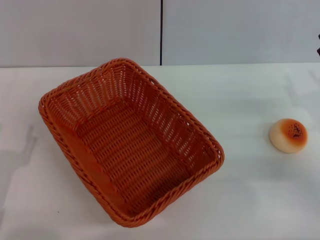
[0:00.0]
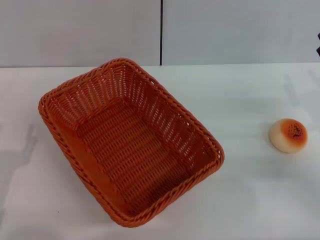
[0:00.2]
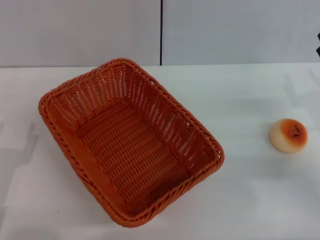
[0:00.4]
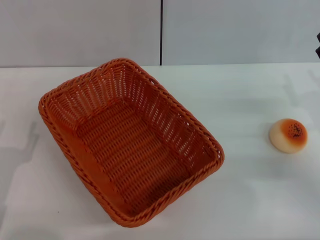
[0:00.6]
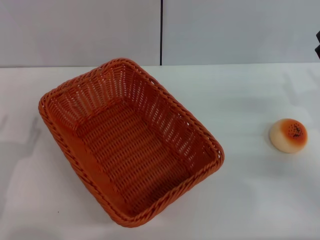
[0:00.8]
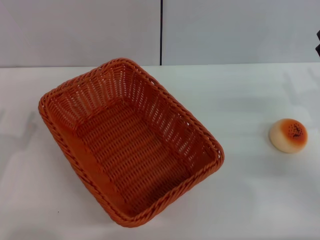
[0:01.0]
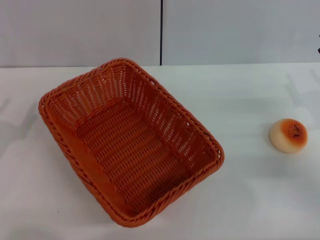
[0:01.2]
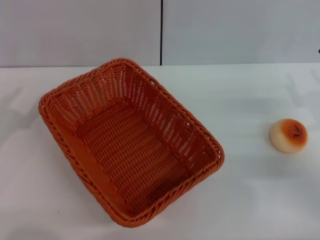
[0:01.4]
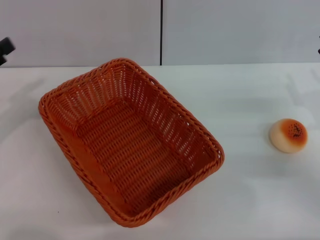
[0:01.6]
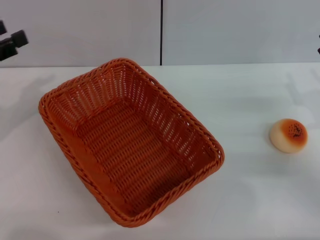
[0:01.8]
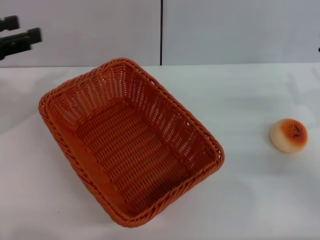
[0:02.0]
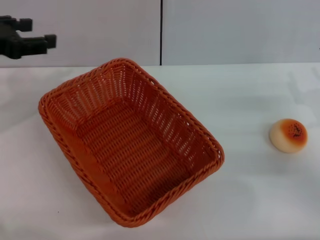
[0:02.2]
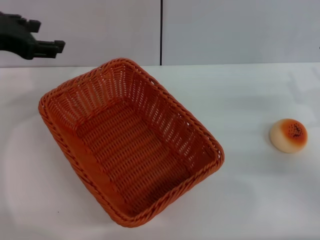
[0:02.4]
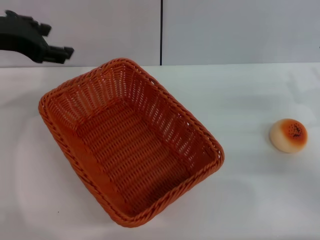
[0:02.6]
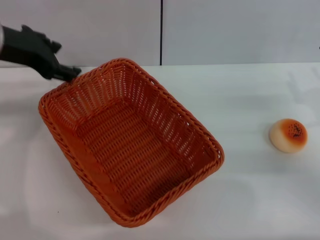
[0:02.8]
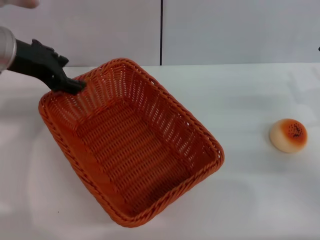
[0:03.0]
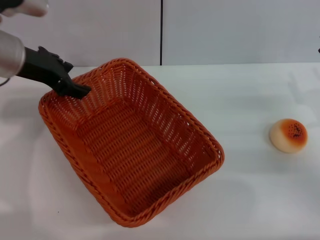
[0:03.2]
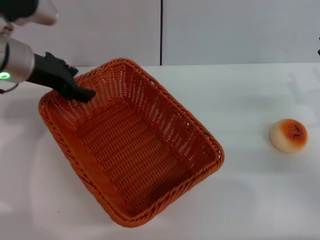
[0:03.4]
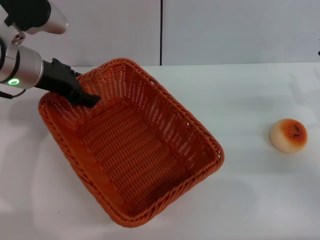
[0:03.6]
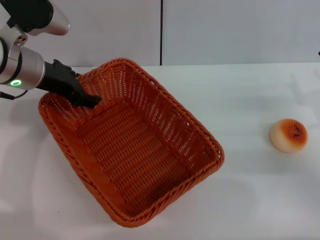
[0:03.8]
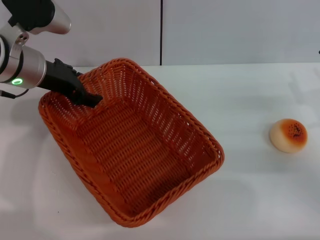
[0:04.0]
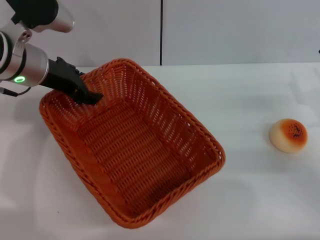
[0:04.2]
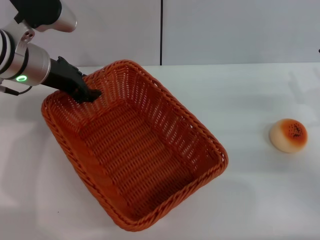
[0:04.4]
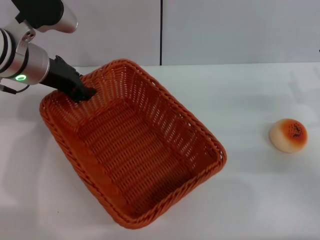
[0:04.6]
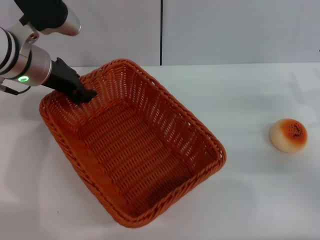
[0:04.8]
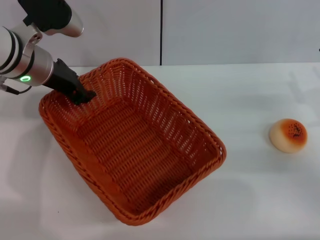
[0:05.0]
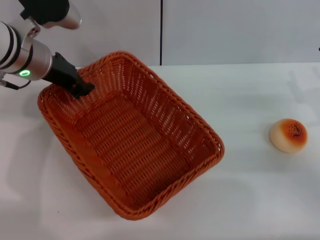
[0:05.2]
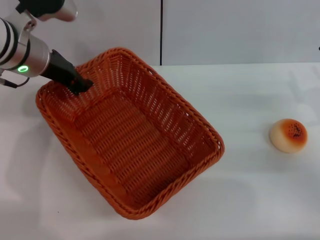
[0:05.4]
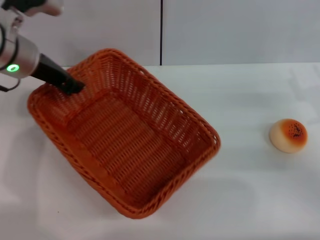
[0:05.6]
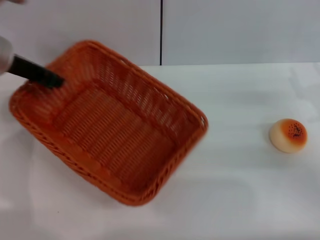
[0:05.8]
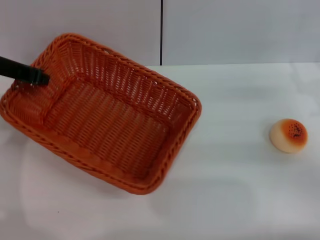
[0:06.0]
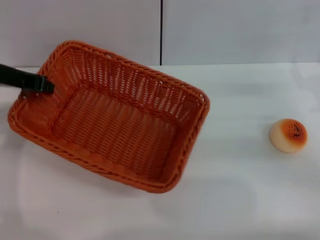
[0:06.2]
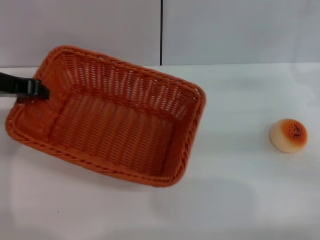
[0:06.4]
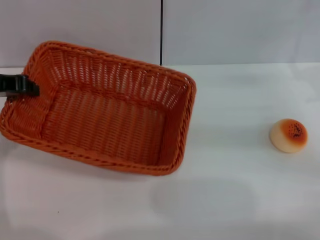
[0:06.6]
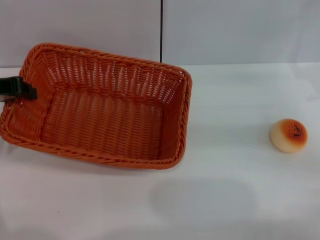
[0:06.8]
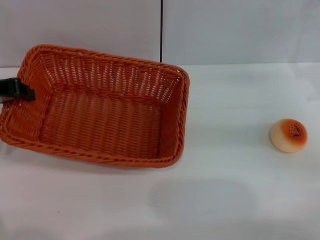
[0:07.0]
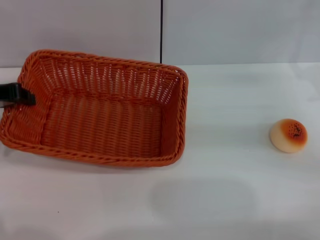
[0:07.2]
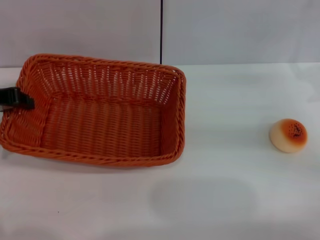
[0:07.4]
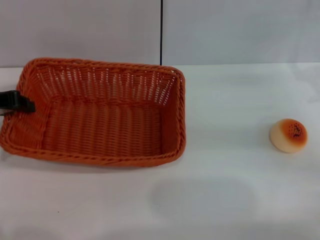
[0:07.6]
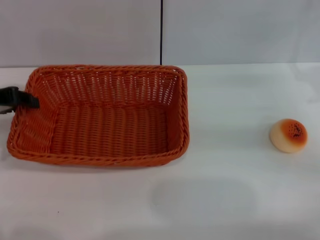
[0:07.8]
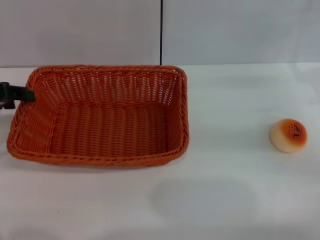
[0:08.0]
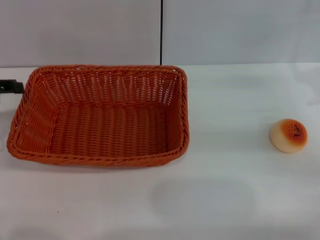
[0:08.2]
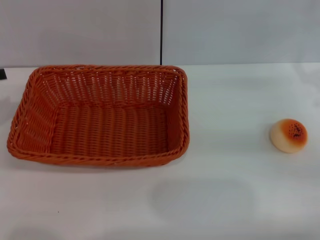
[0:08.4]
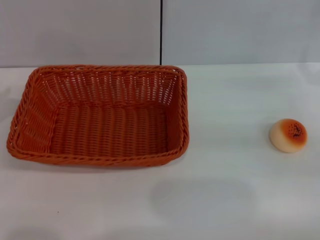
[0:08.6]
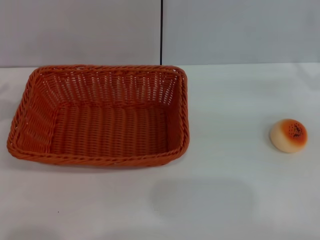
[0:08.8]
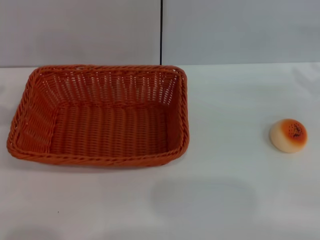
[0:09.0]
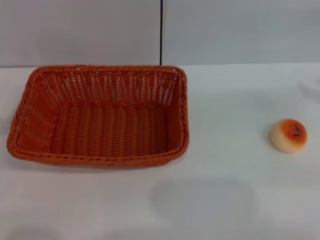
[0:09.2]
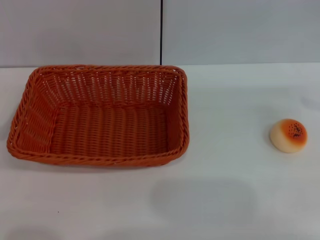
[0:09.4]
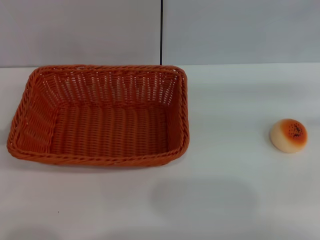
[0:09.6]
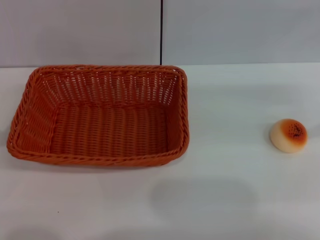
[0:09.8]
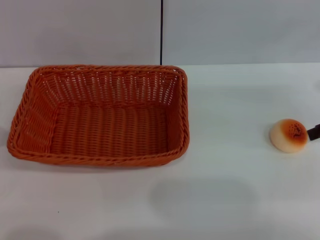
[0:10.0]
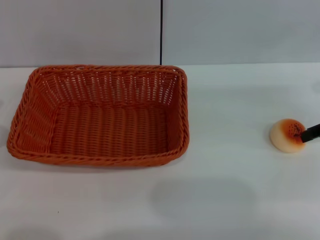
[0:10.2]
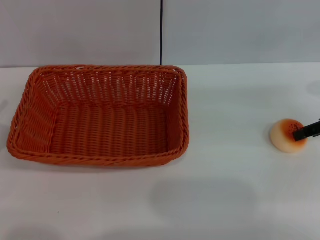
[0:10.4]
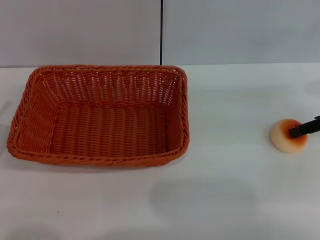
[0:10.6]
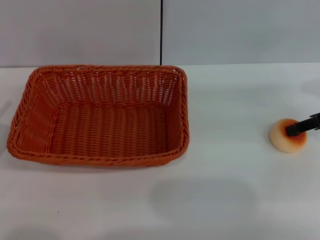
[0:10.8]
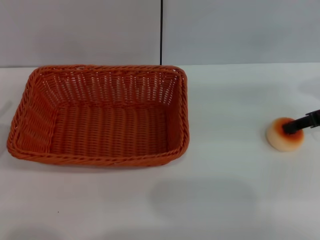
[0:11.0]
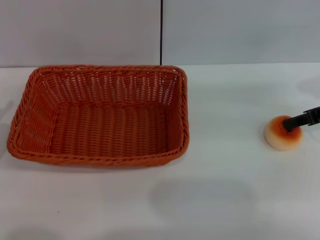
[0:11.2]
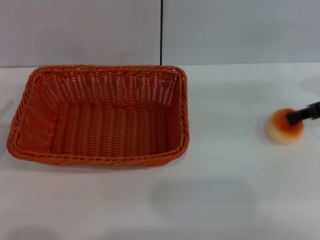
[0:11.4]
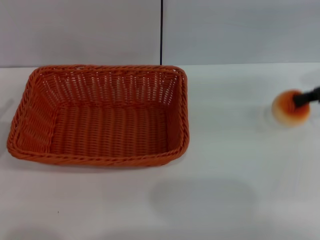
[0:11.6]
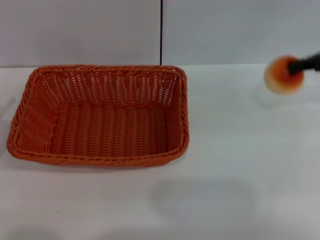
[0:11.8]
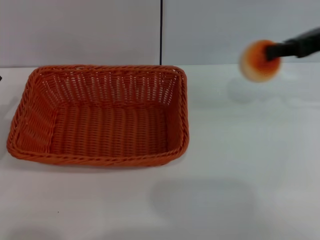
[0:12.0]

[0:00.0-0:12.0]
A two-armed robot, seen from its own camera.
Step, 0:00.0 to 0:08.2: Move the basket to the center of view with the left gripper.
Step, 0:08.4 to 0:12.0: Pick up the egg yolk pastry with the right gripper.
0:01.6 to 0:03.0: The left gripper moves to the right, forward and upward, about 15 cm.
0:03.0 to 0:04.4: The left gripper moves approximately 5 cm.
0:04.4 to 0:06.0: The left gripper shifts approximately 5 cm to the left, and closes its fingers.
0:06.0 to 0:07.6: The left gripper shifts by approximately 5 cm.
0:07.6 to 0:09.0: The left gripper goes about 10 cm to the left and backward, and opens up. Meanwhile the right gripper is displaced upward and to the right by about 10 cm.
0:10.4 to 0:12.0: The right gripper shifts about 10 cm upward and to the left, and closes.

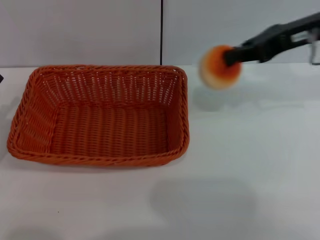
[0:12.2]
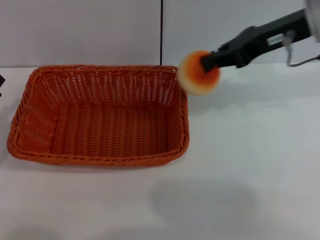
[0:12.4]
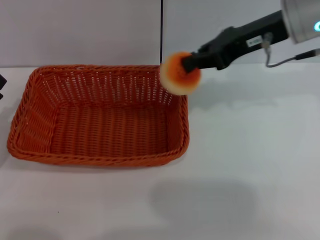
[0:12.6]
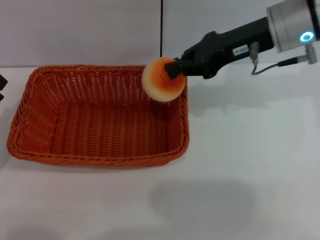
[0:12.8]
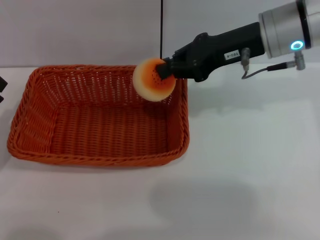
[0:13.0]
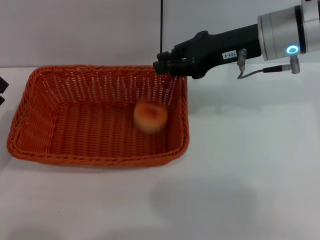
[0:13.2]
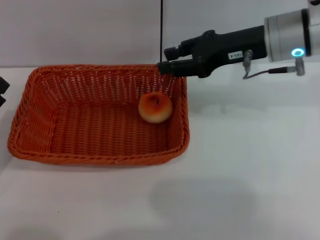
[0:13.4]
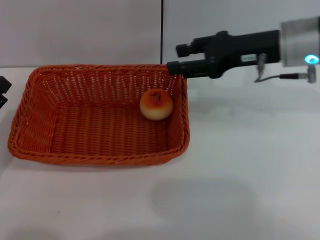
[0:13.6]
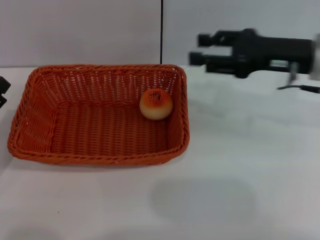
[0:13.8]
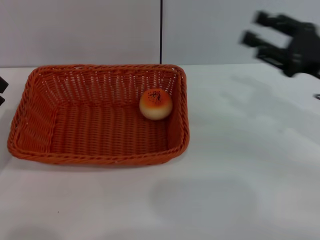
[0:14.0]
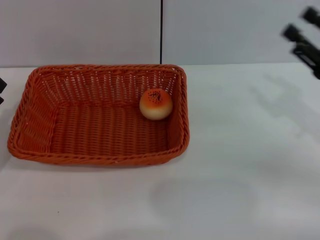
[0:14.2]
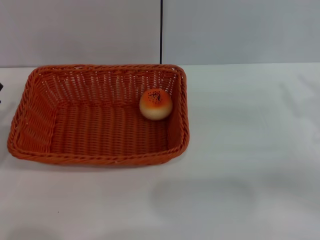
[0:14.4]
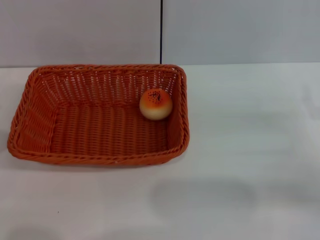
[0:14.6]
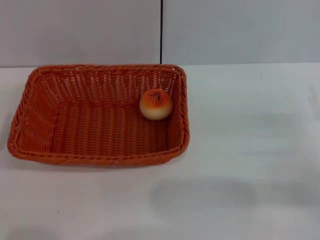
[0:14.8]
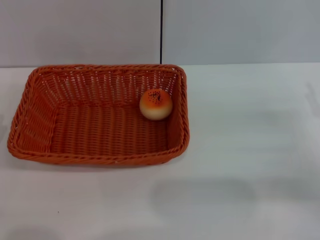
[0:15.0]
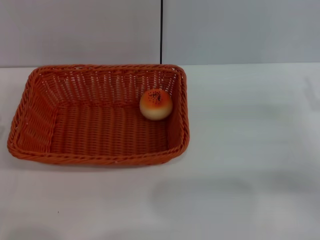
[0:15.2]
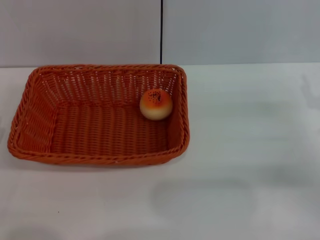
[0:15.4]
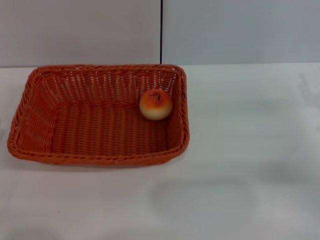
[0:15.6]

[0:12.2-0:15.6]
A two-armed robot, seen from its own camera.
Step, 0:12.2 to 0:13.8: Place the egg yolk pastry into the basket with the right gripper.
0:12.2 to 0:13.8: The right gripper heads downward, covering roughly 5 cm, moves approximately 10 cm to the left and comes back, and opens up.
0:13.8 to 0:15.6: The right gripper shifts about 15 cm downward, to the right and backward.

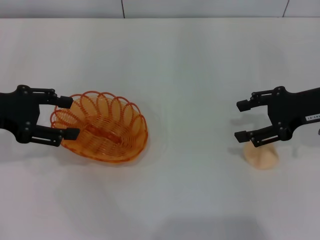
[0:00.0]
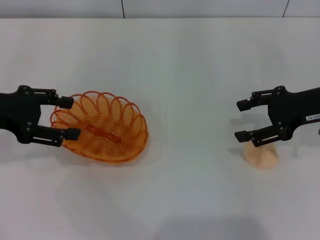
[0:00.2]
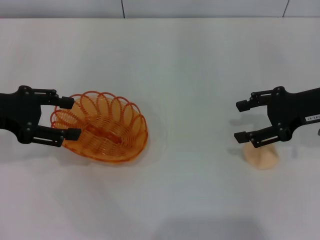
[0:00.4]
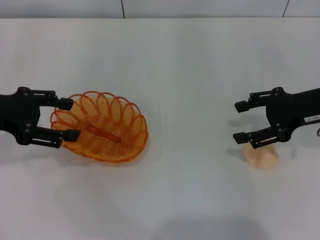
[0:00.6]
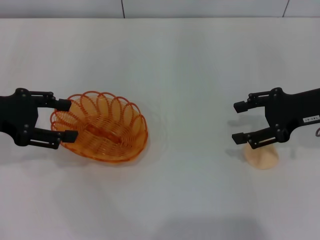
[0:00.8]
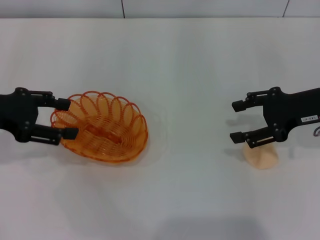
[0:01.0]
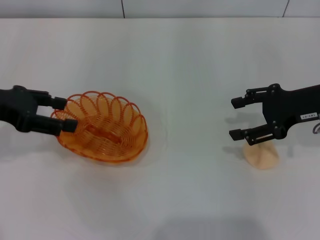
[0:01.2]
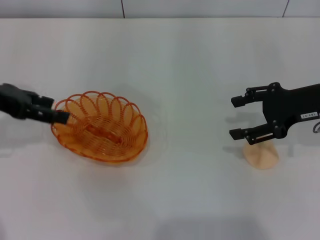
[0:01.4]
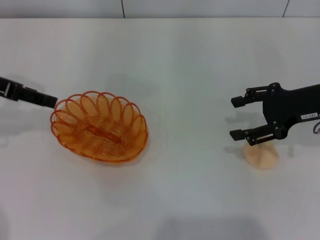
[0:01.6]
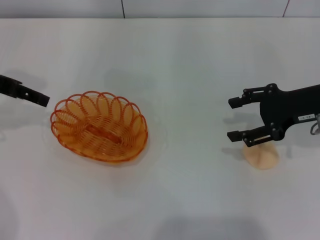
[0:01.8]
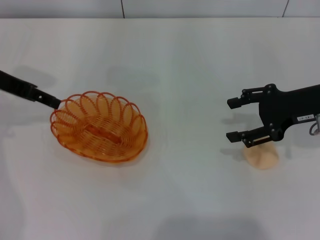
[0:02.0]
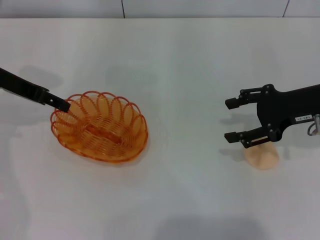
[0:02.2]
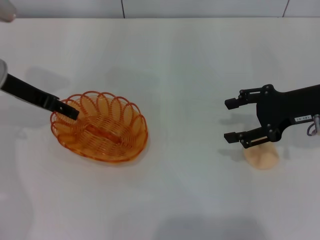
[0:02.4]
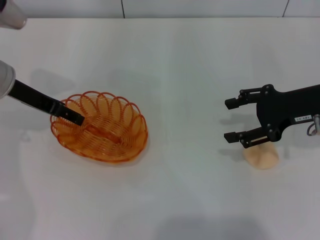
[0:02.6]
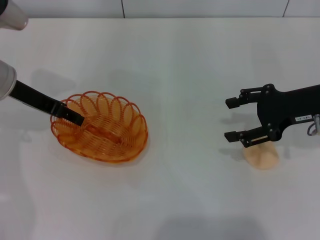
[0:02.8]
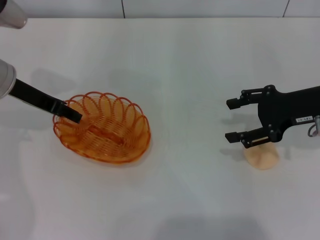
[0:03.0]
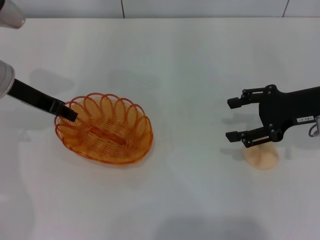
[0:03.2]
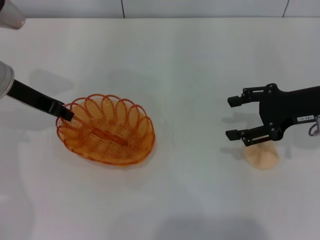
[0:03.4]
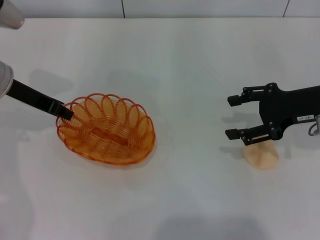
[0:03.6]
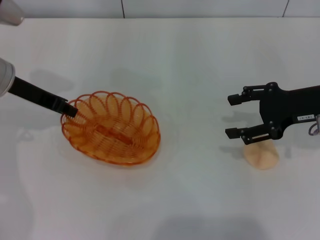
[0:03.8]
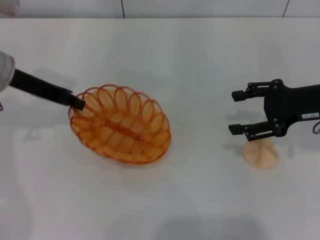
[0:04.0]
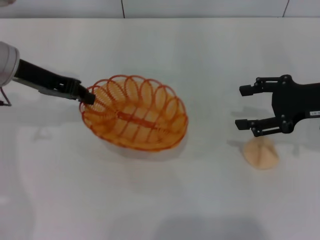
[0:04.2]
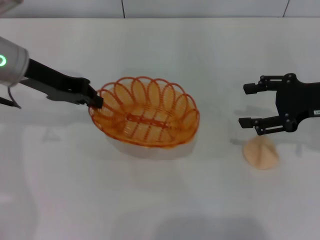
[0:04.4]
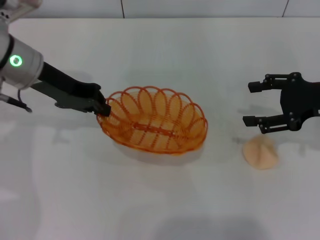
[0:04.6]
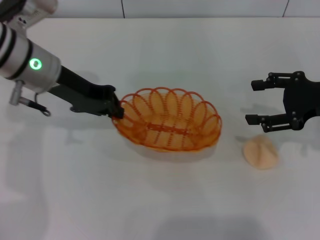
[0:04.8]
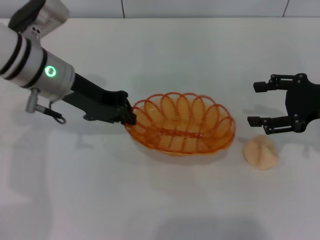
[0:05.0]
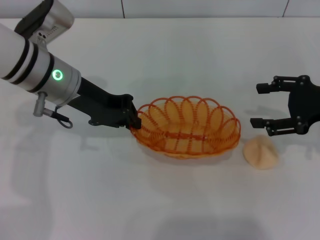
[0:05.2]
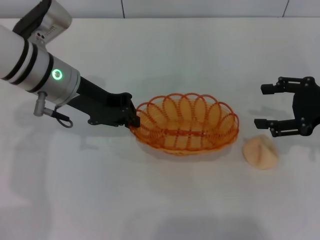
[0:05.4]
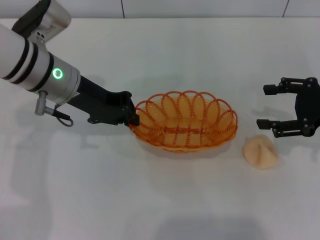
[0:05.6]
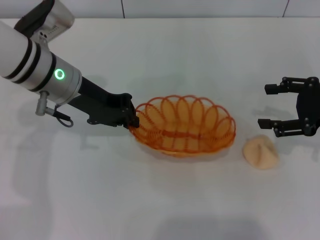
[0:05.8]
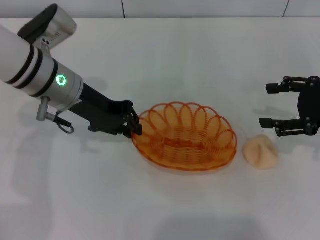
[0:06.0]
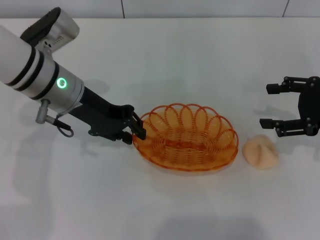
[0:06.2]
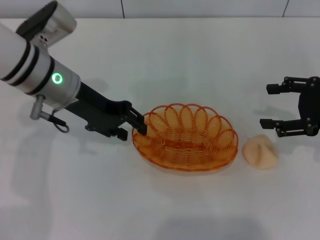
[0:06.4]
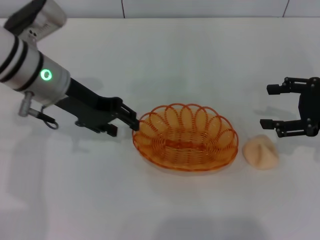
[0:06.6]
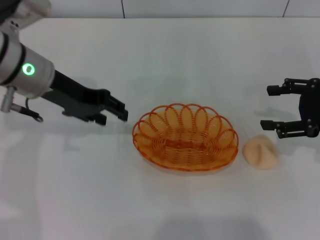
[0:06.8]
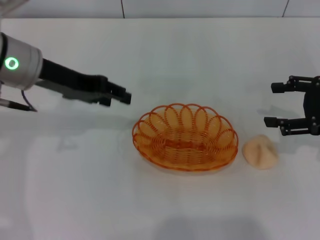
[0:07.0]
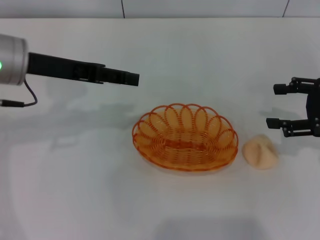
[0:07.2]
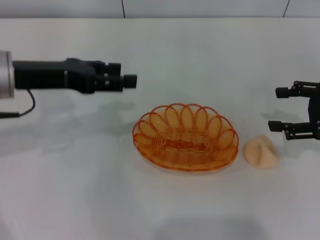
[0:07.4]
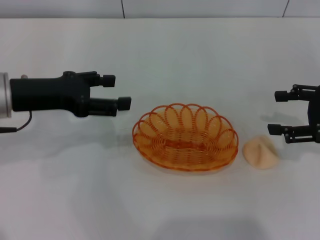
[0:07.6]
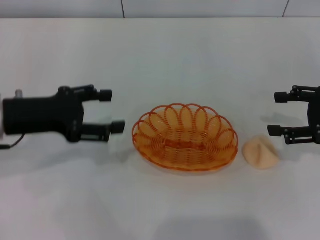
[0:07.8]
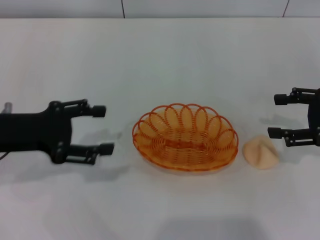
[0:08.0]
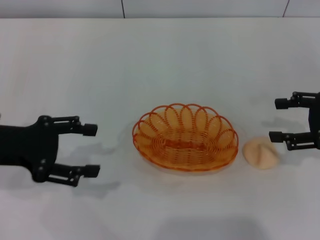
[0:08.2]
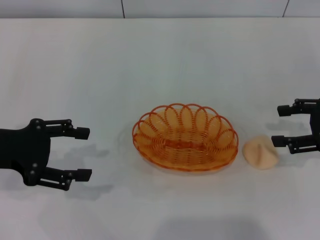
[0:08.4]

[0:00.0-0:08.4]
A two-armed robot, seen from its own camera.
Step, 0:00.0 to 0:04.6: Pick up the basket with the left gripper.
Step, 0:04.8 to 0:07.2: Place the basket in the center of view with the left gripper.
0:01.4 to 0:02.8: The left gripper heads to the right, covering approximately 5 cm.
0:02.8 to 0:04.2: The left gripper closes up.
0:04.2 to 0:05.6: The left gripper heads to the right, covering about 5 cm.
0:05.6 to 0:07.0: The left gripper shifts by approximately 5 cm, and opens up.
0:07.0 to 0:08.4: The left gripper heads to the left, backward and downward, covering about 15 cm, and opens up.
